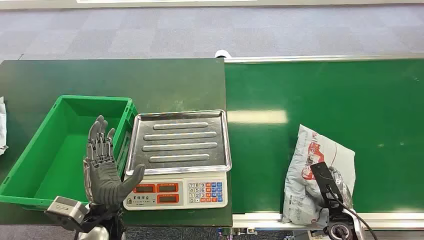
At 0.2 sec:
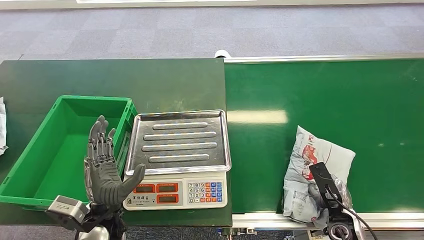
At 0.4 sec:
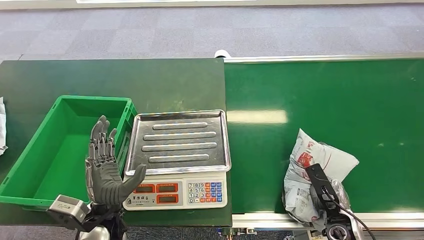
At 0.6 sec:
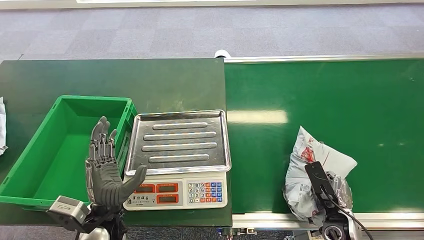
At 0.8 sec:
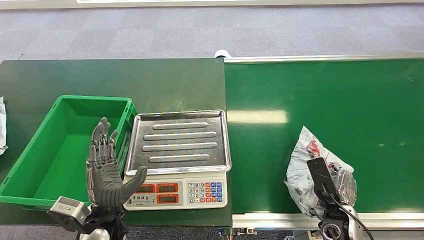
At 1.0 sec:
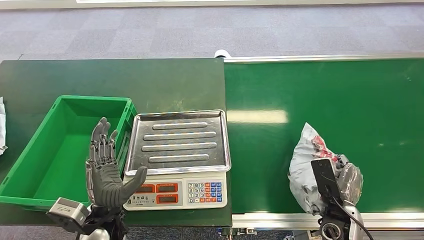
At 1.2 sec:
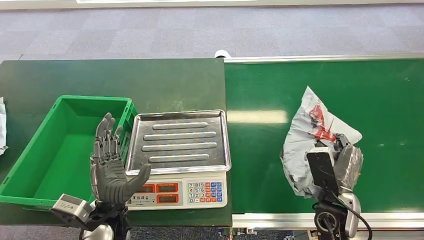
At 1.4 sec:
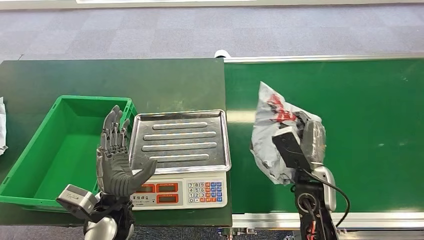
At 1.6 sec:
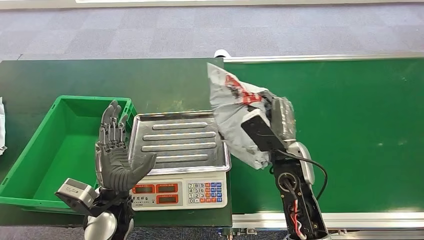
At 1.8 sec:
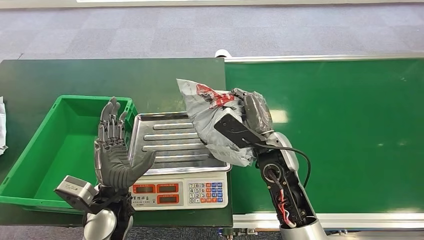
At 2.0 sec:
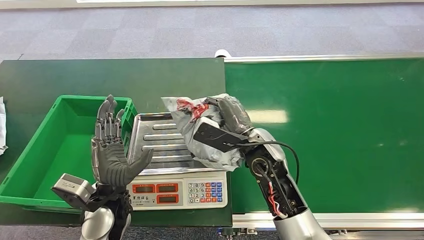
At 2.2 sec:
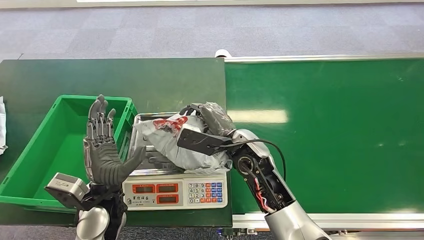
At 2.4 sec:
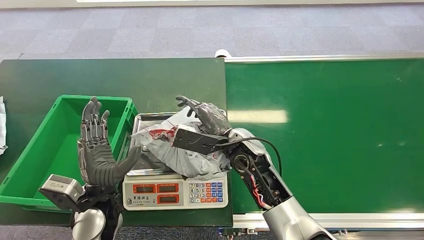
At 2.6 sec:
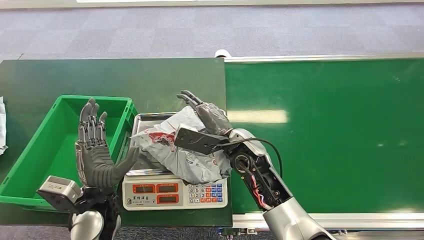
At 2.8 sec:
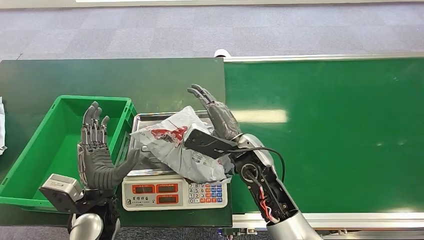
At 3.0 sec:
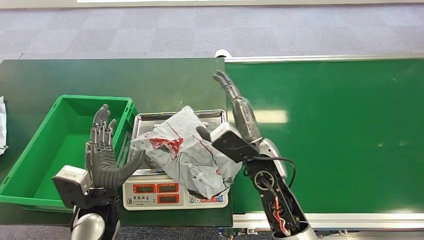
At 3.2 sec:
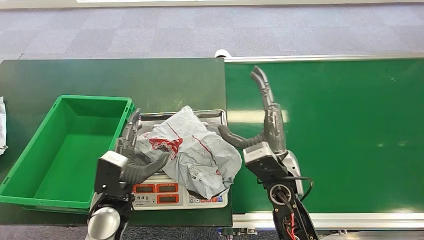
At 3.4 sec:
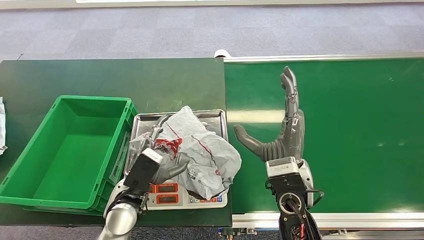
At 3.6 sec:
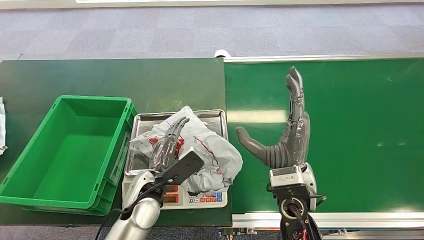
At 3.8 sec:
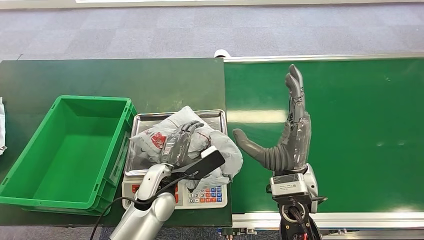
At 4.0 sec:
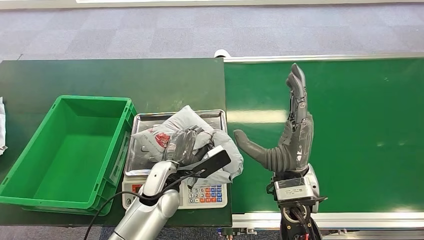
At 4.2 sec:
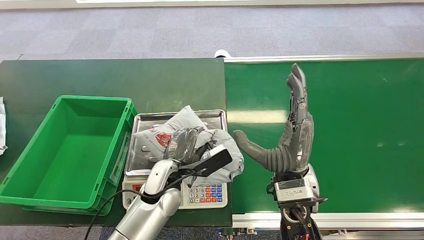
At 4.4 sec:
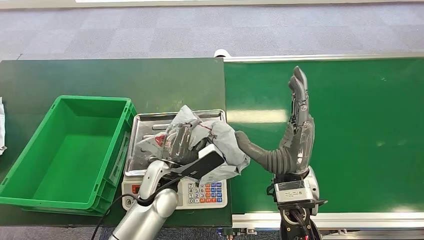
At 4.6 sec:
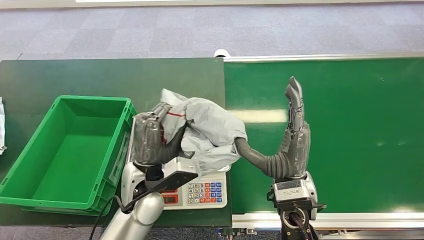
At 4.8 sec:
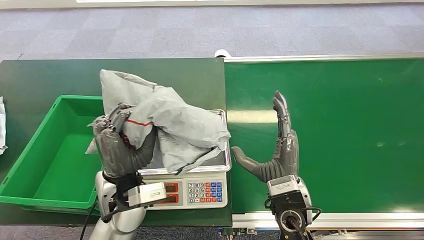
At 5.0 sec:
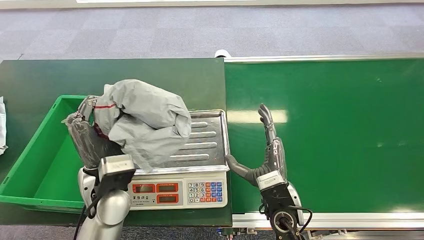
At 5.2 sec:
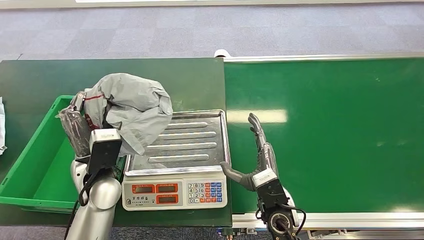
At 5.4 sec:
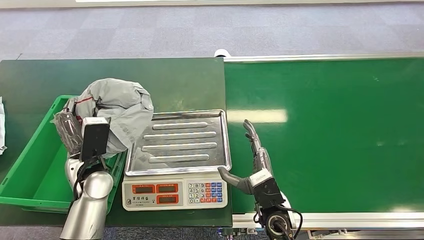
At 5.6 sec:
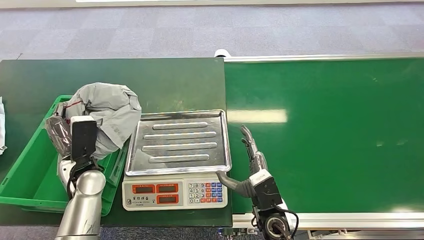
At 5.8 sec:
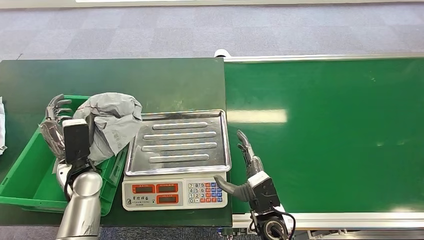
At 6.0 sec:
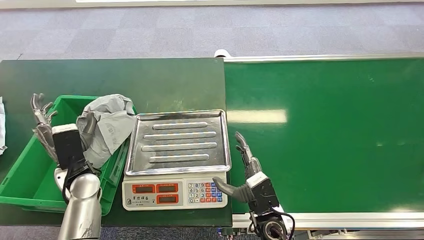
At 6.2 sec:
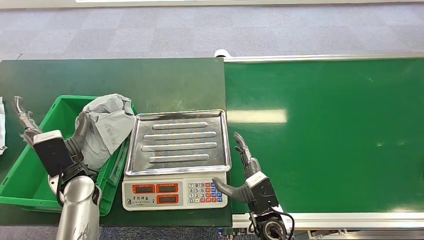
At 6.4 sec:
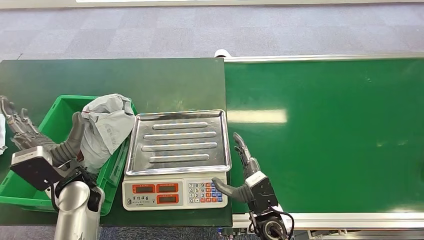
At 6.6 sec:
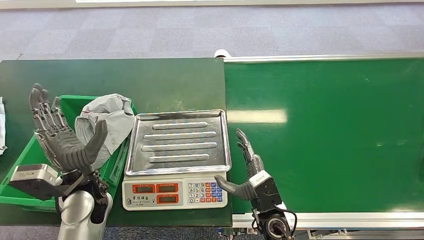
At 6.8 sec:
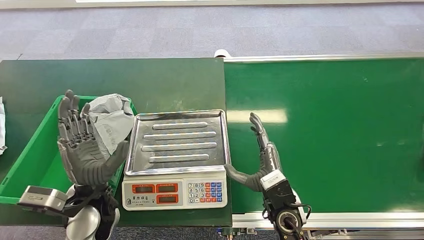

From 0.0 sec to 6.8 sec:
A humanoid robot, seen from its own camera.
Step, from 0.0 sec to 1.6 sec: Pick up the package from the conveyor belt.
Step, from 1.8 sec to 3.6 sec: Place the package onto the inbound machine.
Step, from 3.8 sec to 5.0 sec: Pick up the package from the inbound machine.
Step, from 5.2 sec to 6.8 sec: Place the package into the parcel locker.
From 2.8 sec to 4.0 sec: The right hand shifts roughly 10 cm backward and to the right. Meanwhile the left hand heads to the right and forward, covering roughly 15 cm.
From 5.4 sec to 6.8 sec: The left hand shifts about 5 cm backward.
